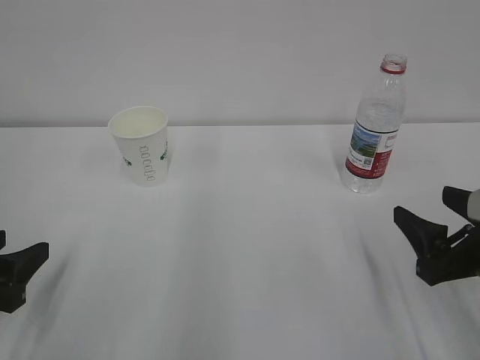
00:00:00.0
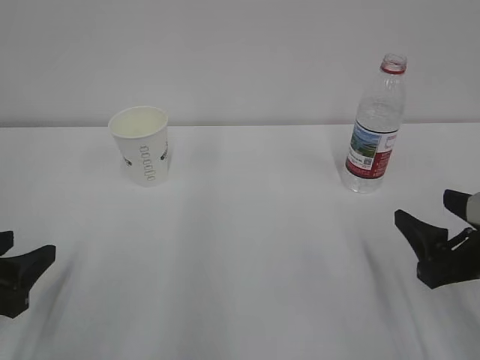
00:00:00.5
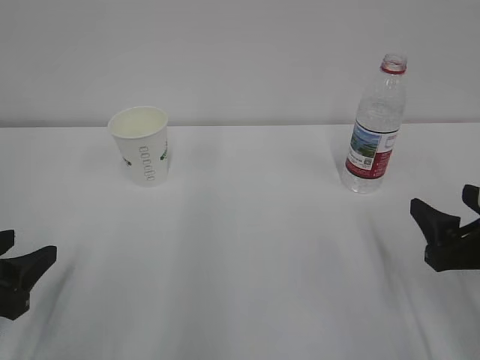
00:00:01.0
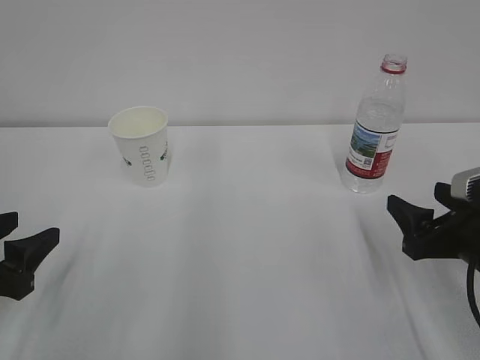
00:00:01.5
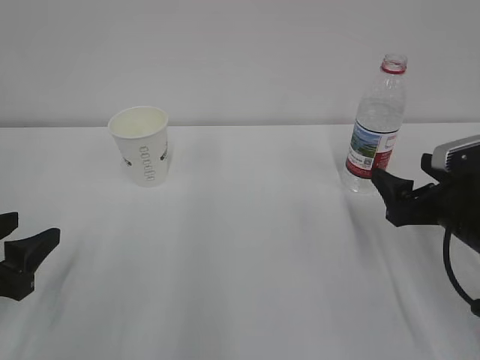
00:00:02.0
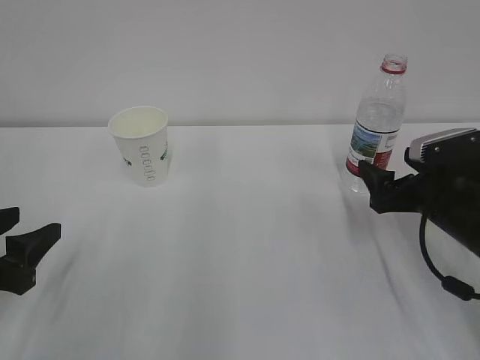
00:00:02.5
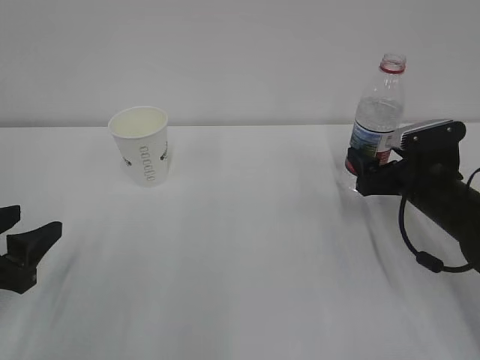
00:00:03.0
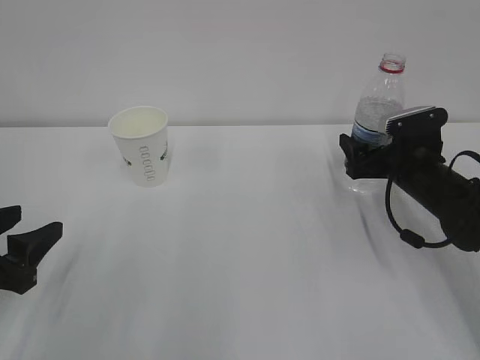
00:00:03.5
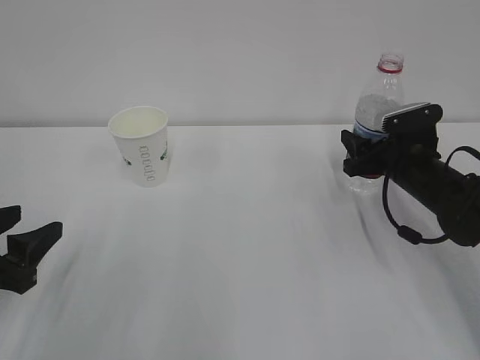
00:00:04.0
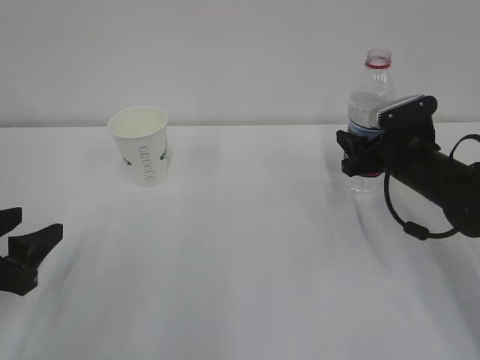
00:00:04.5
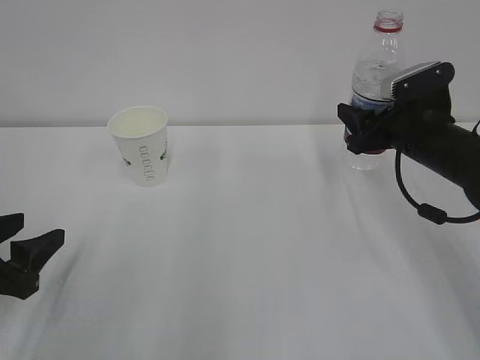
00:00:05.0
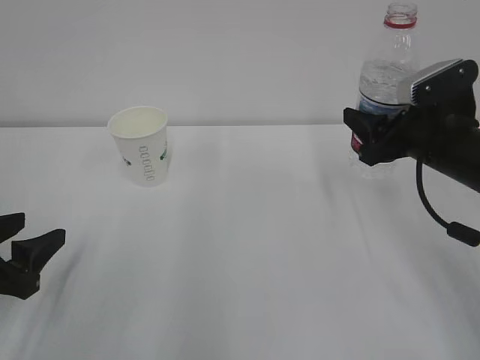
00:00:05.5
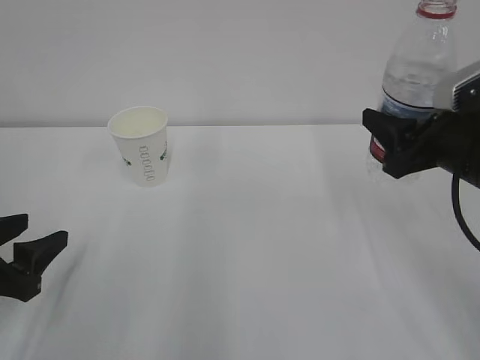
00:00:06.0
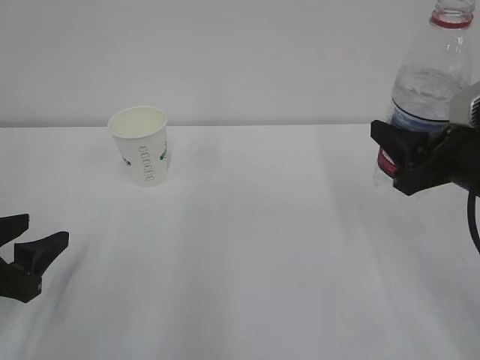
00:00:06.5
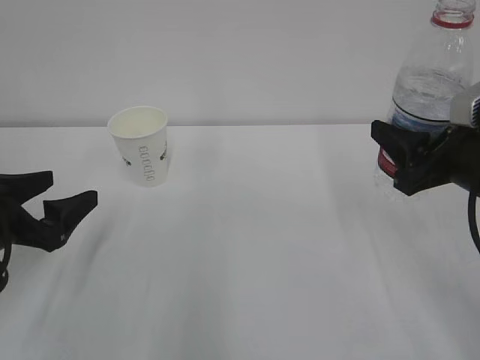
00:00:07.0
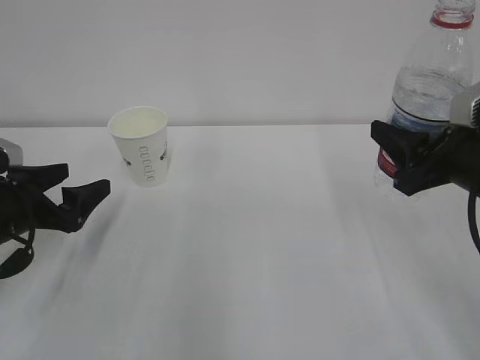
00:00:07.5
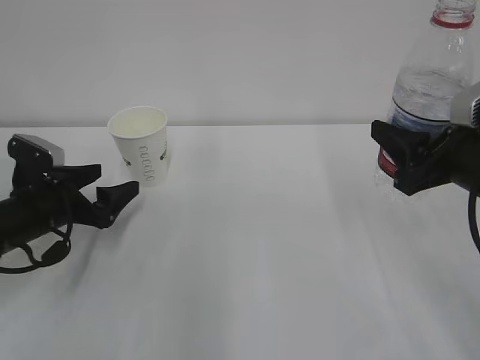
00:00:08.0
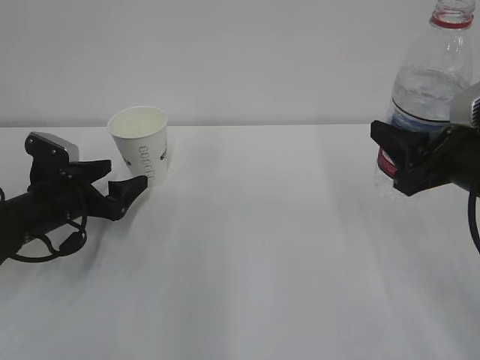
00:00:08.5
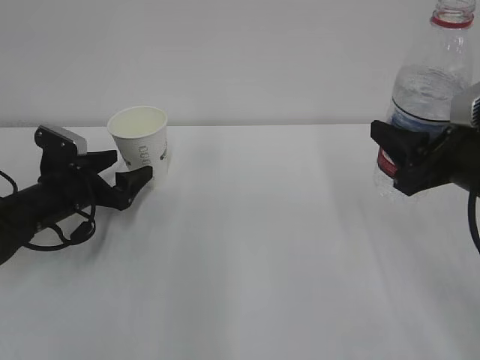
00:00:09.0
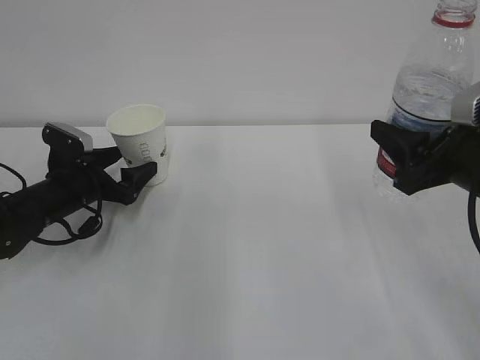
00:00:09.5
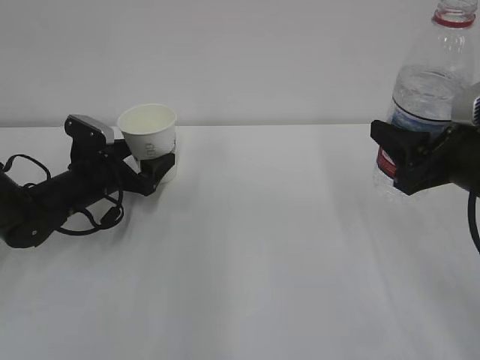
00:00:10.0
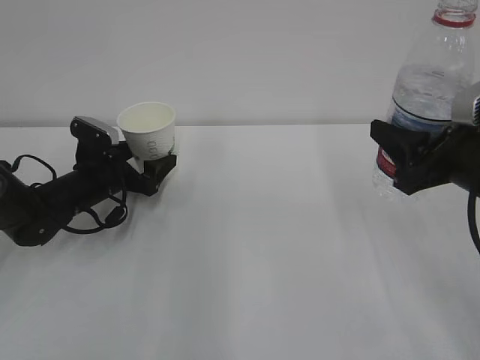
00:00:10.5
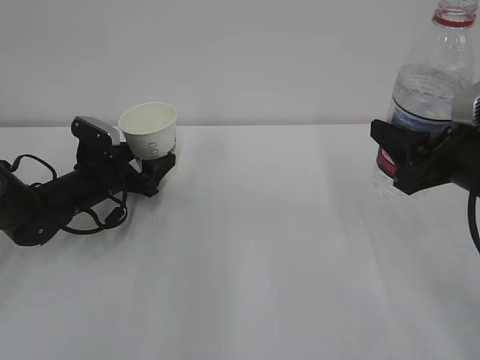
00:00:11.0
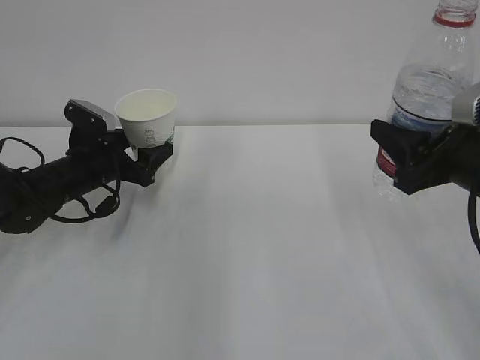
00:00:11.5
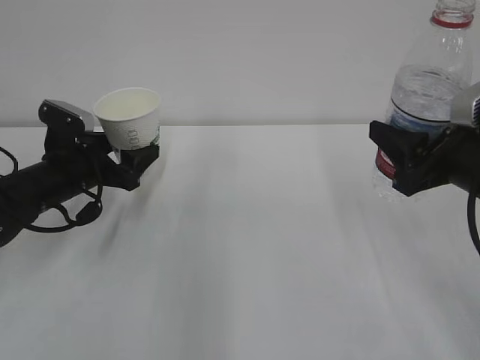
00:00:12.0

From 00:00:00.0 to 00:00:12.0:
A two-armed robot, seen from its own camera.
From 00:00:00.0 to 00:00:02.0: The right gripper goes about 5 cm forward, and opens its fingers.
From 00:00:02.0 to 00:00:04.0: The right gripper goes about 10 cm forward, and closes up.
From 00:00:04.0 to 00:00:06.0: The right gripper travels upward and backward by about 15 cm.
From 00:00:06.0 to 00:00:08.0: The left gripper heads forward, covering about 10 cm, and opens.
From 00:00:08.0 to 00:00:10.0: The left gripper goes roughly 10 cm forward.
From 00:00:10.0 to 00:00:12.0: The left gripper shifts by roughly 5 cm, and closes up.

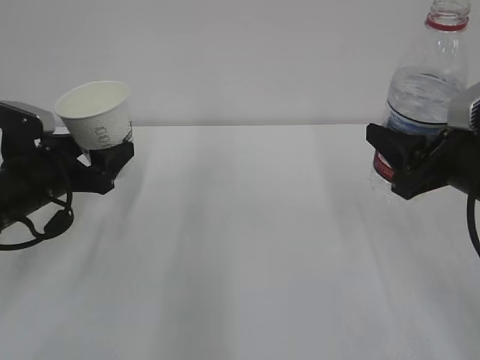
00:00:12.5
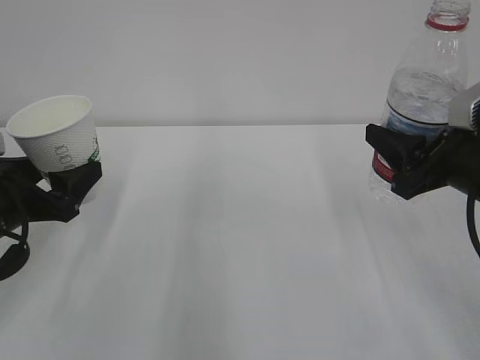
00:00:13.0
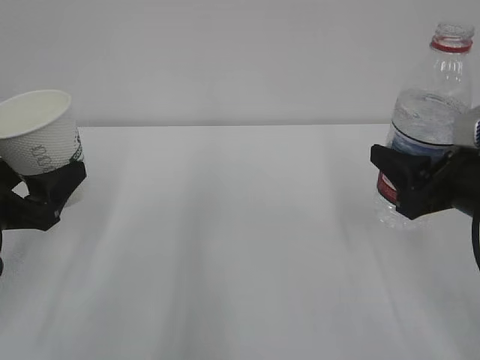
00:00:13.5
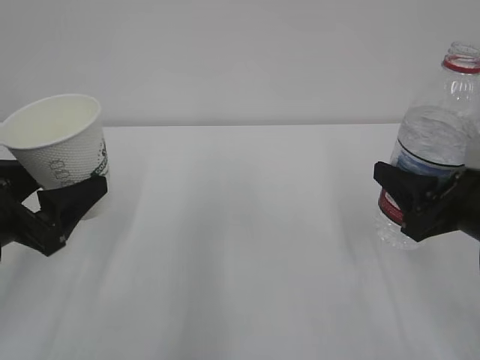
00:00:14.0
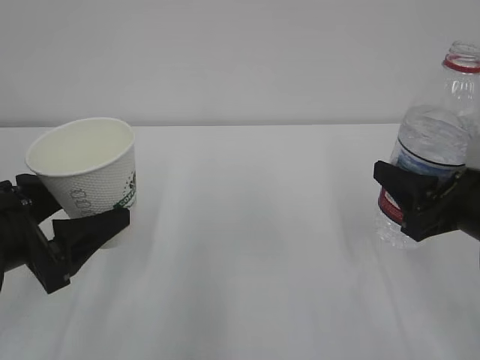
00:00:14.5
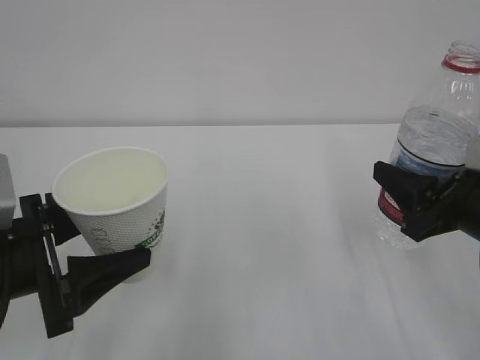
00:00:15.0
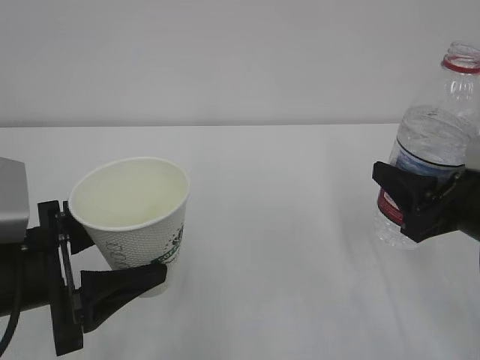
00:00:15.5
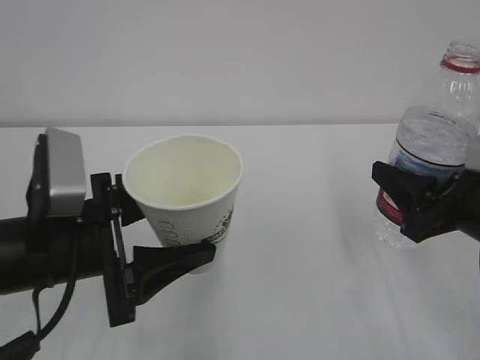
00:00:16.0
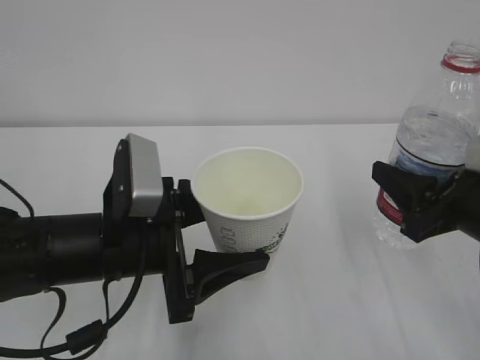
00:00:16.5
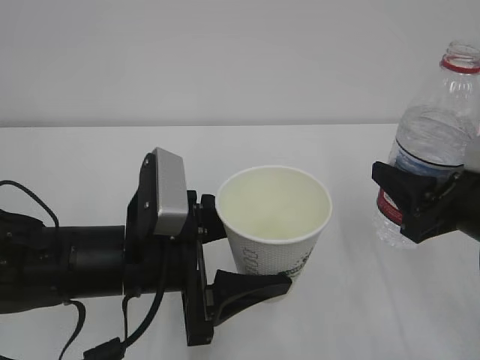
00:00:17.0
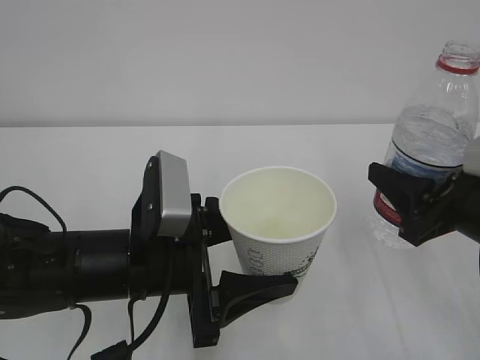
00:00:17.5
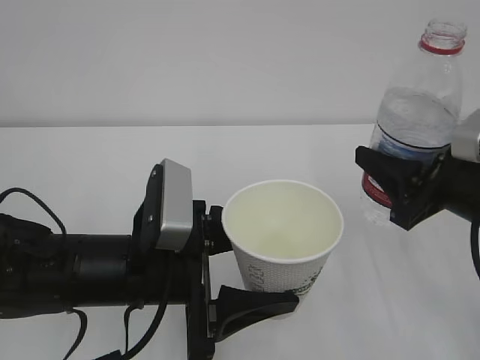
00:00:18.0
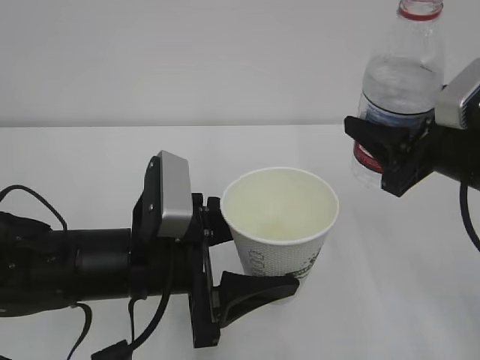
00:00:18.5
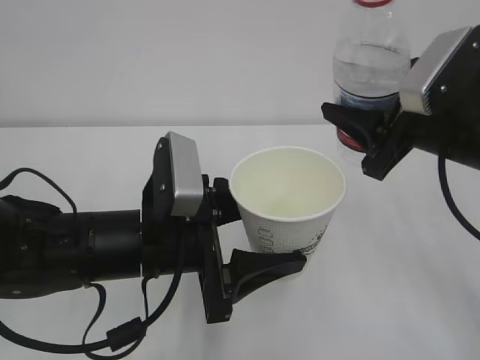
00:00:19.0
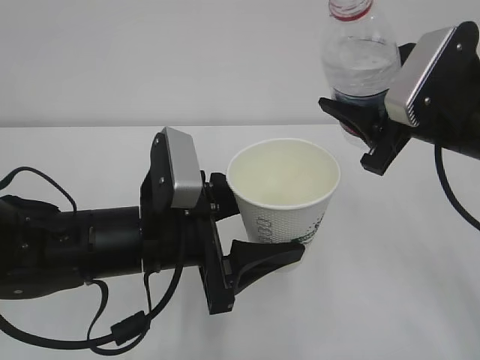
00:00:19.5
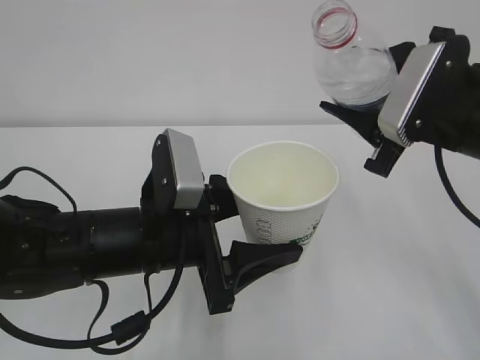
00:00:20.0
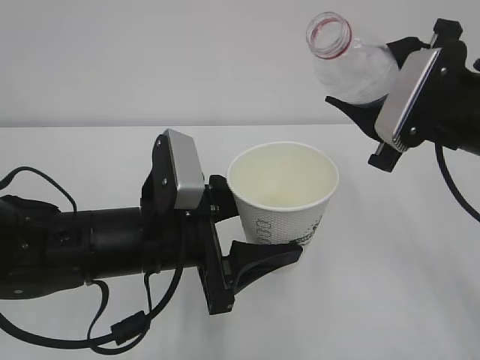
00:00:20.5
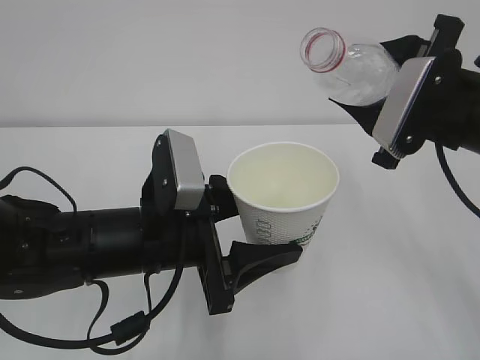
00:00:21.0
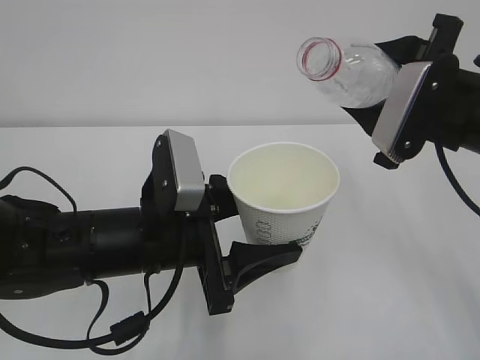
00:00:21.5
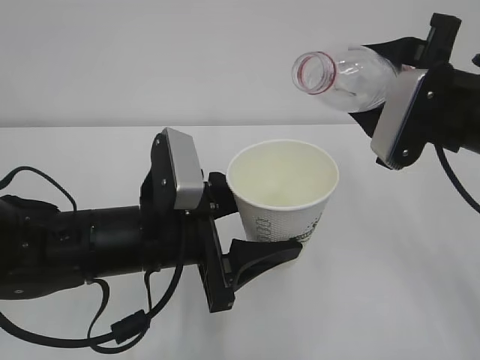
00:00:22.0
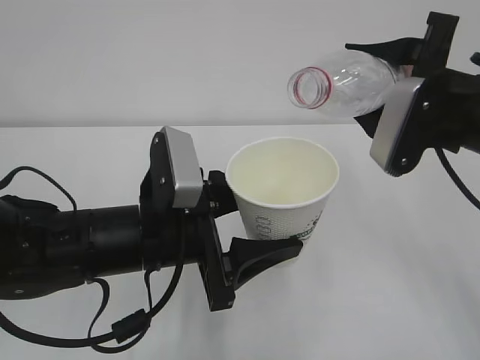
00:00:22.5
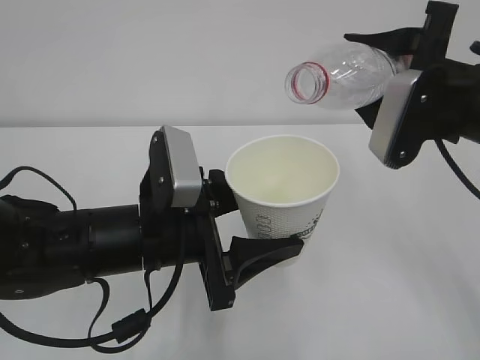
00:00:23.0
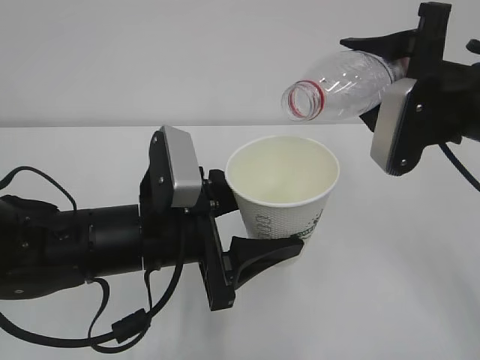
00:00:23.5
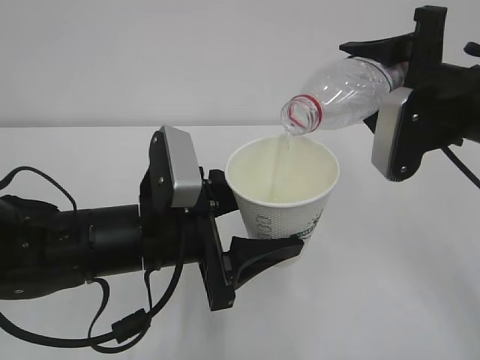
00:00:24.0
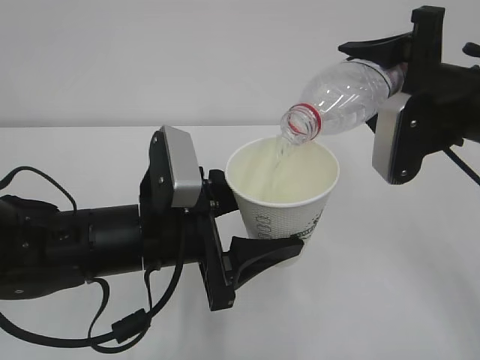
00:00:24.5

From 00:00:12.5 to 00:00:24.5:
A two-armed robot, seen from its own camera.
From 00:00:12.5 to 00:00:14.5: The left gripper shifts roughly 10 cm backward.
From 00:00:14.5 to 00:00:16.5: The left gripper moves to the right, roughly 10 cm.
From 00:00:16.5 to 00:00:18.5: The right gripper moves approximately 5 cm.
From 00:00:20.5 to 00:00:22.5: There are only small adjustments of the grippers.
From 00:00:22.5 to 00:00:24.5: The grippers move only a little.

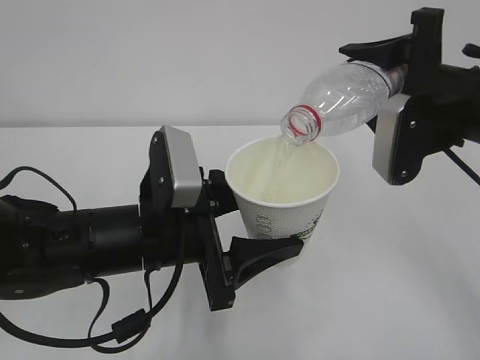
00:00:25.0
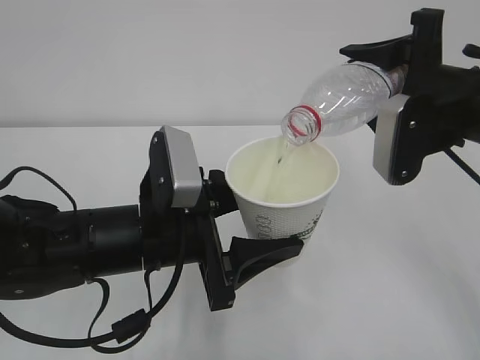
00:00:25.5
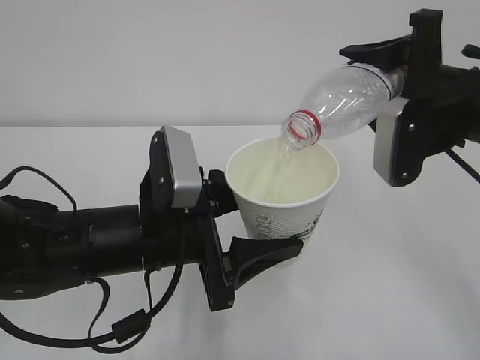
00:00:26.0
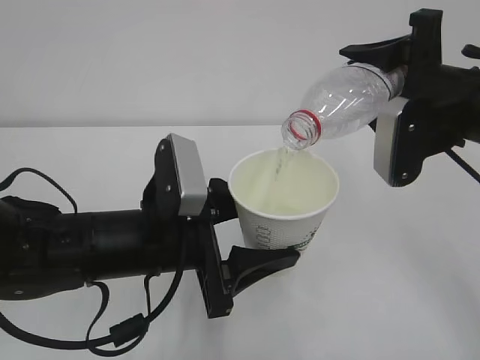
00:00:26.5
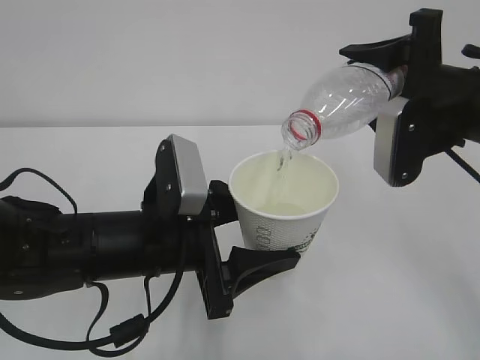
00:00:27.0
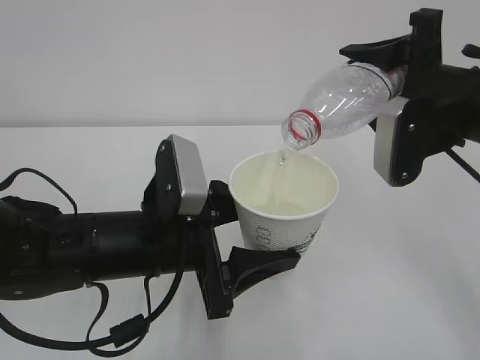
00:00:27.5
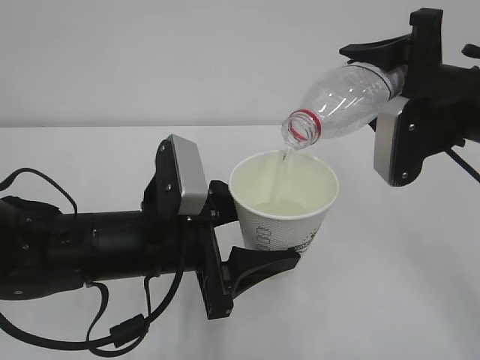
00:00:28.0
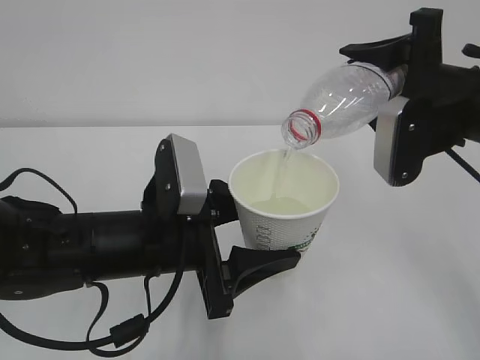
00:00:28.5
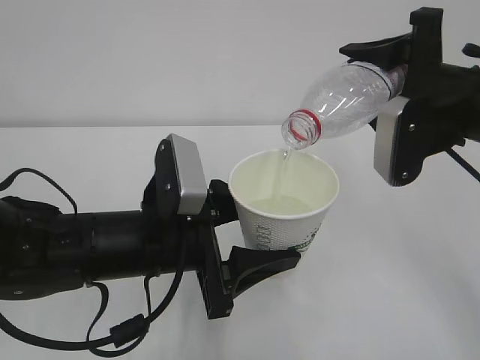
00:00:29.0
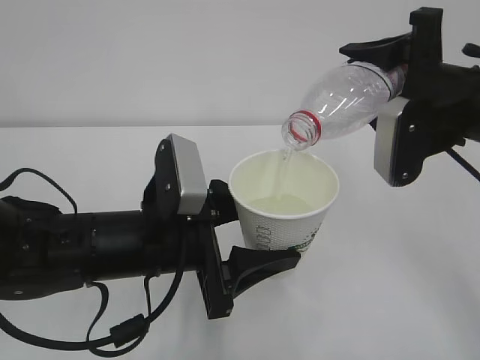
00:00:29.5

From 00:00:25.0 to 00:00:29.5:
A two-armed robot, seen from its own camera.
From 00:00:25.0 to 00:00:29.5: Neither gripper changes place.
